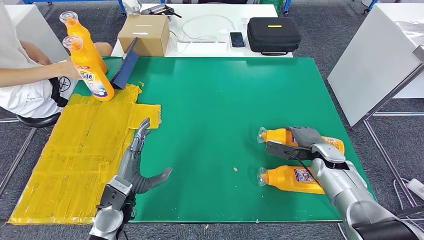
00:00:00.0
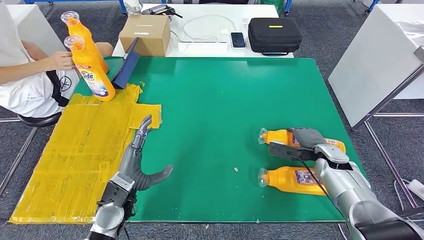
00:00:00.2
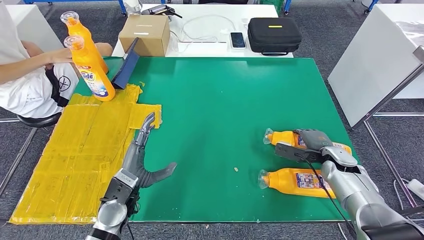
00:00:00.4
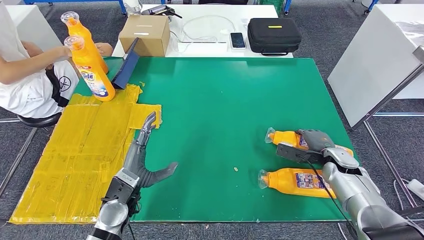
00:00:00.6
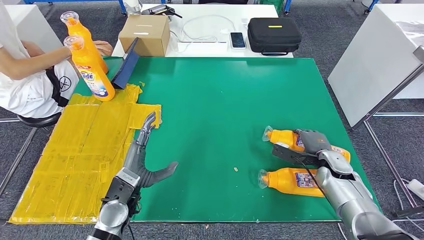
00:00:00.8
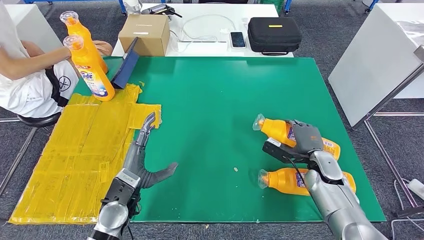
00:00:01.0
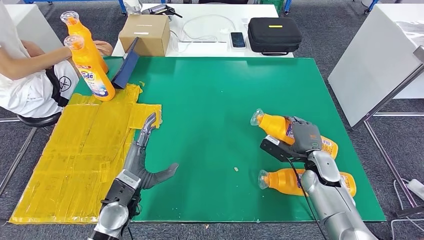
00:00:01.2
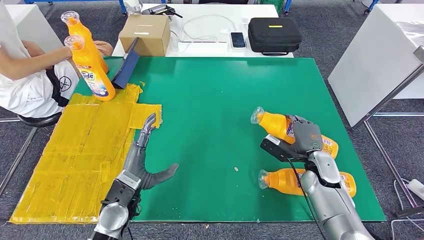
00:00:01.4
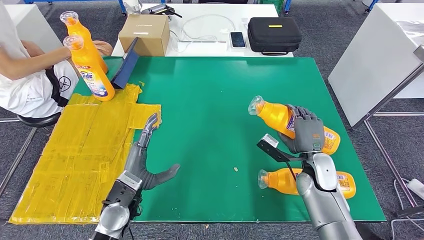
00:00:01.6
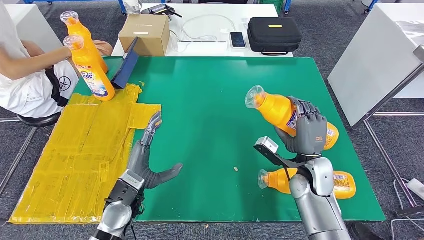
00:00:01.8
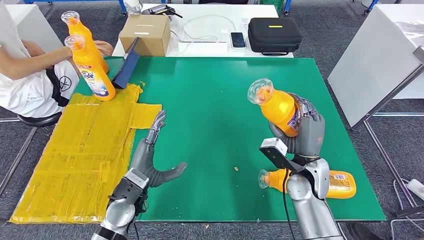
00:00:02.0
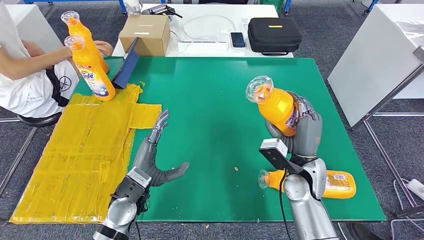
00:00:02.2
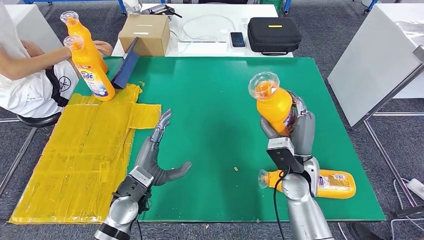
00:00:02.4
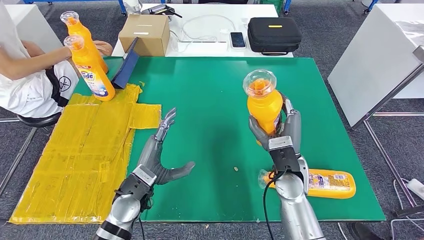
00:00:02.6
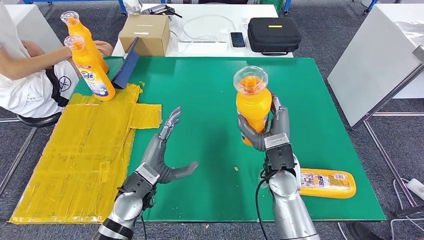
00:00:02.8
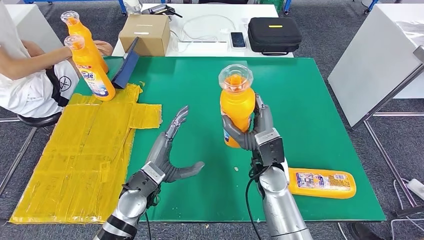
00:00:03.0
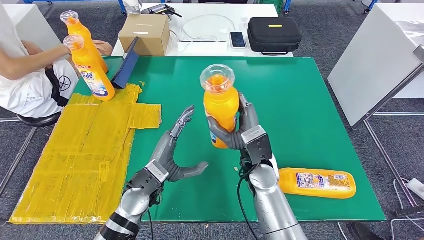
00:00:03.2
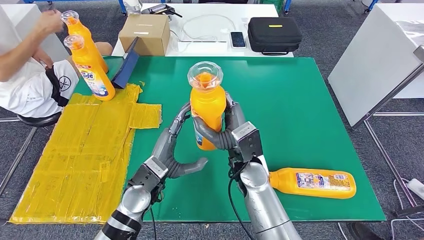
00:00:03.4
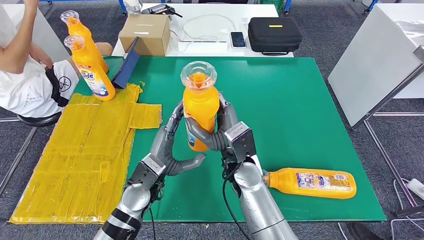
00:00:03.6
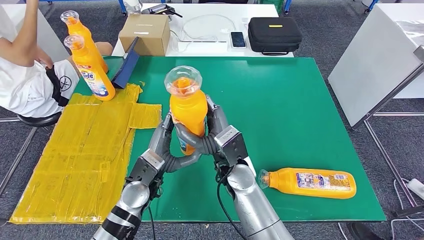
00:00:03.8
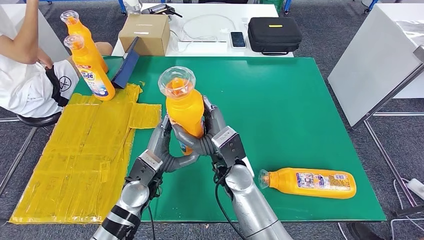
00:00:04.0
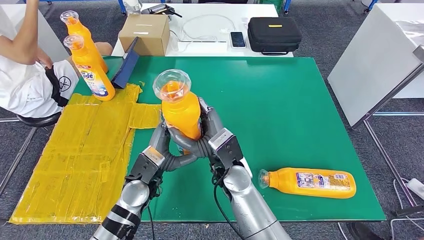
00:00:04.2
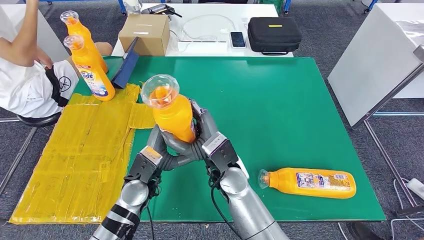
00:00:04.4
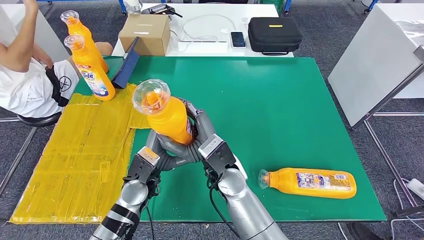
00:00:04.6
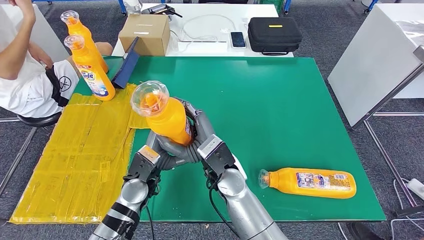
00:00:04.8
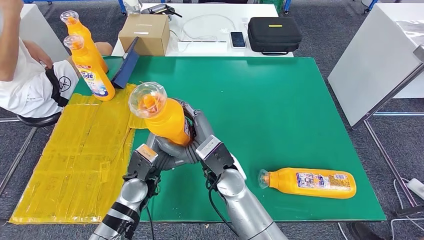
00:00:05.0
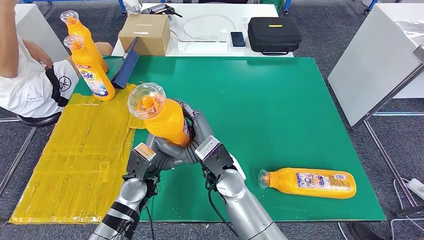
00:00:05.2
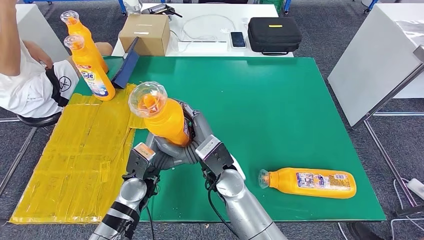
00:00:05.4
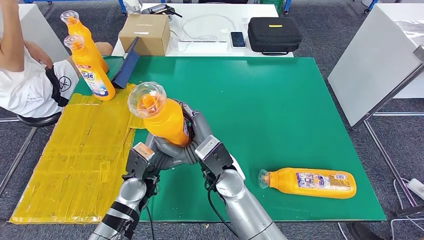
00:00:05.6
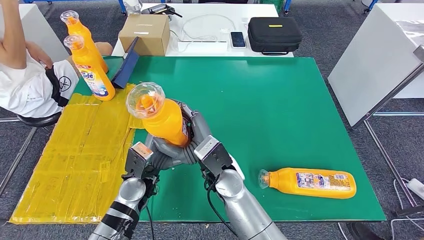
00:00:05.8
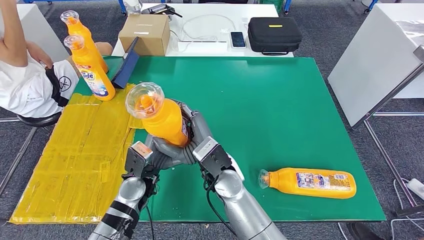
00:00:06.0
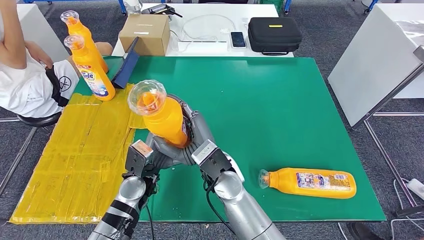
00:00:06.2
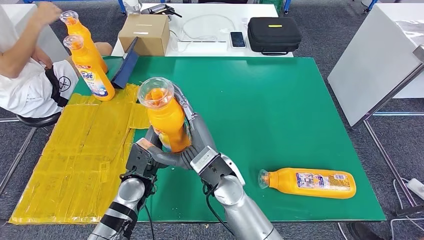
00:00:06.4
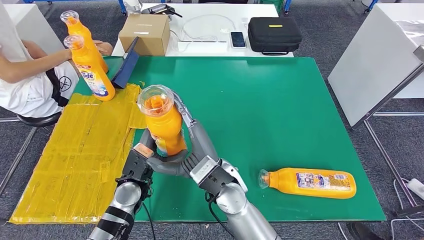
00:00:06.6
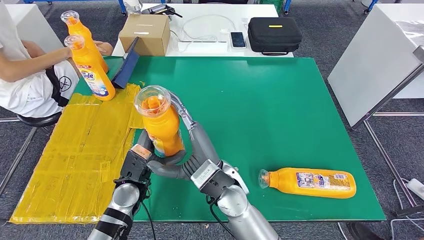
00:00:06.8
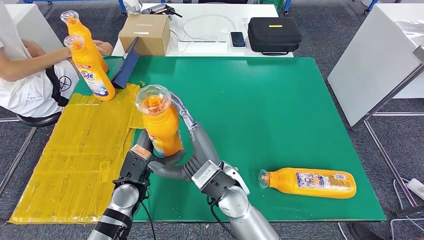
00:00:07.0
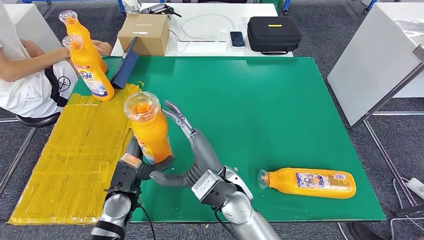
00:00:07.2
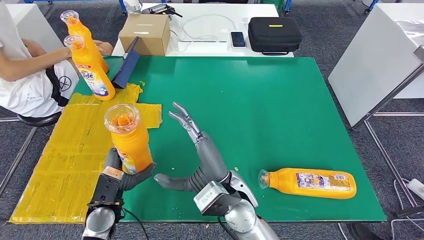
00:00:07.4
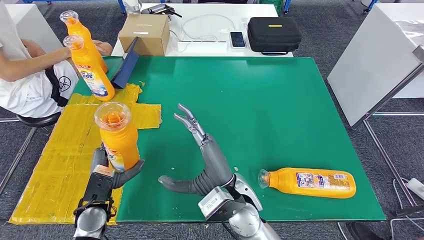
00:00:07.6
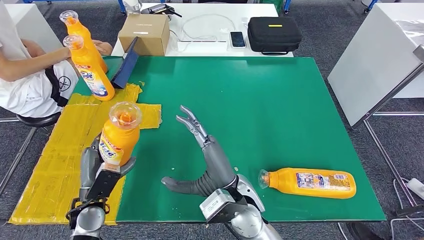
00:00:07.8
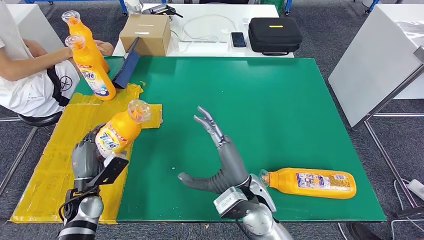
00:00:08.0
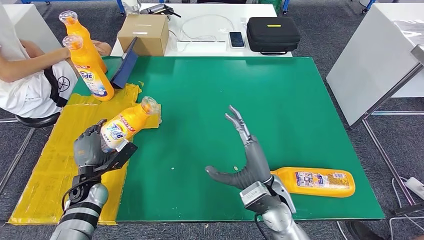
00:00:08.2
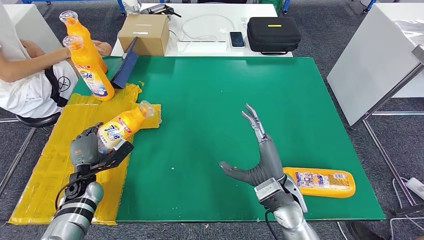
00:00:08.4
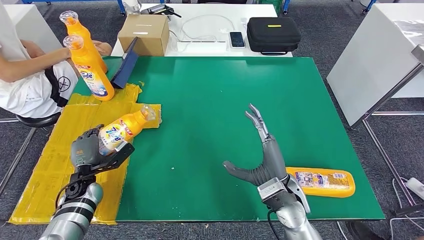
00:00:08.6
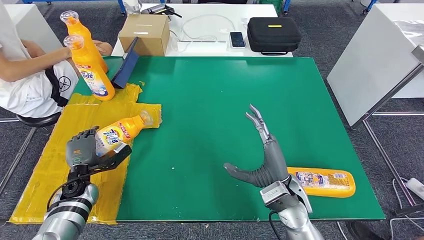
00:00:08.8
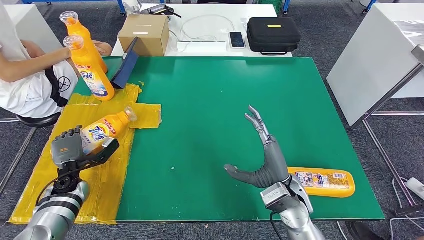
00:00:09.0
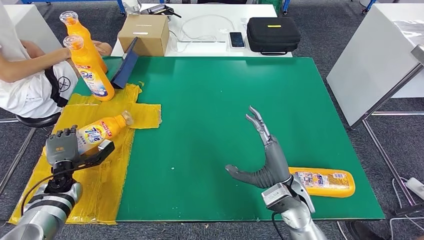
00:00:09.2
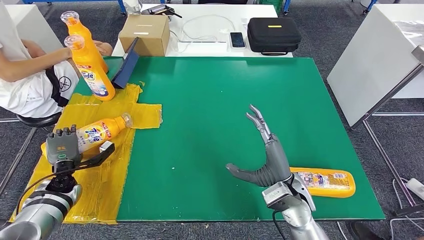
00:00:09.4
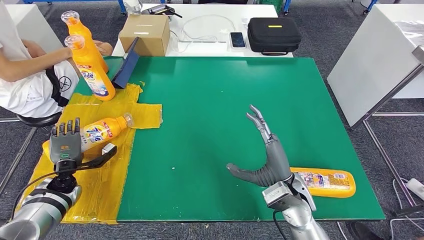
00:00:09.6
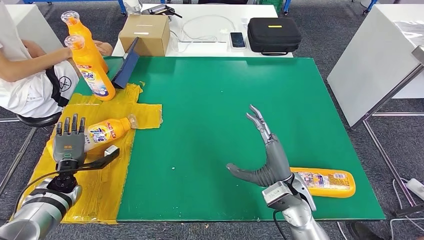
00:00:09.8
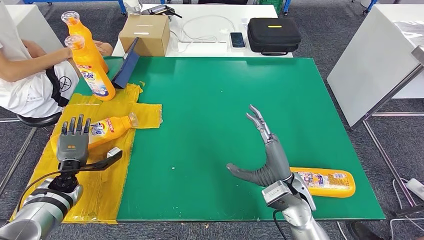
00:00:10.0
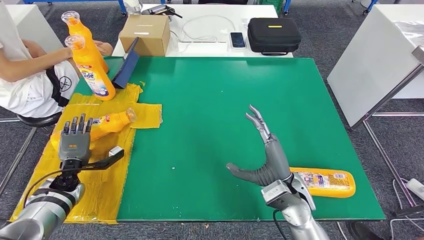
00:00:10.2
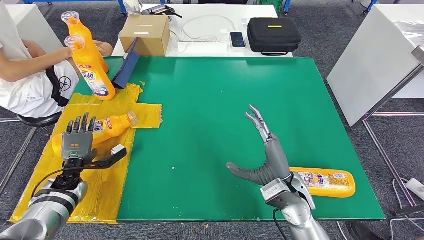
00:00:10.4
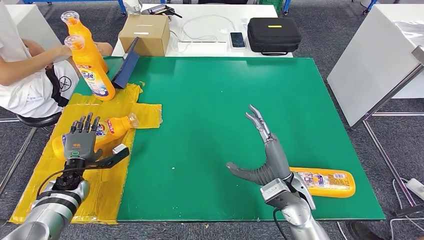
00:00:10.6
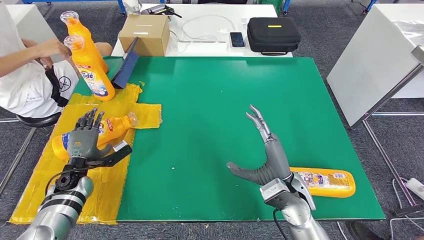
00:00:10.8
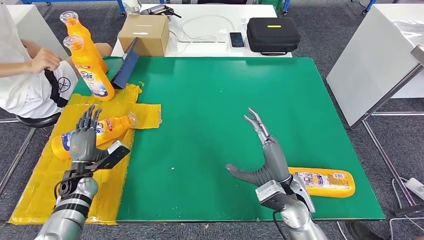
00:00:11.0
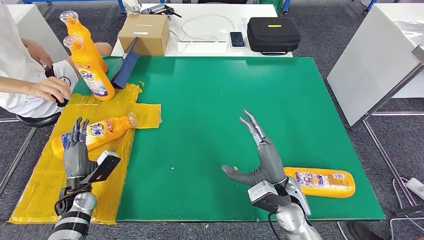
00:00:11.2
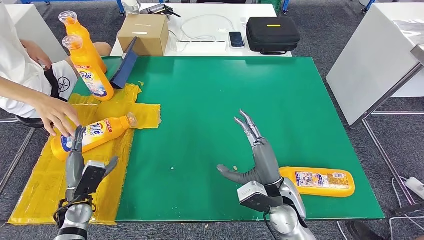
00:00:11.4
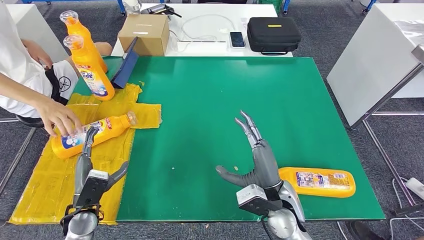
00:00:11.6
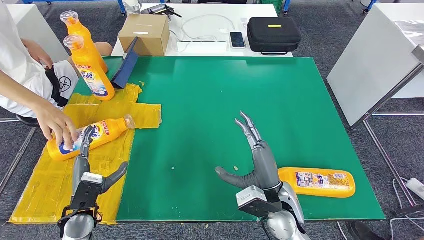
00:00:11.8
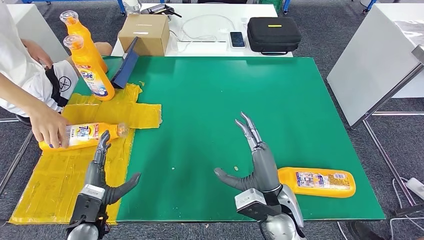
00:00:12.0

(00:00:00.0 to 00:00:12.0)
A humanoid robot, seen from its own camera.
Step, 00:00:00.0 - 00:00:03.2: Pick up the fast-moving consumer goods bottle from the table.
00:00:00.0 - 00:00:01.6: The right hand travels to the left by approximately 5 cm.
00:00:01.6 - 00:00:03.0: The left hand moves roughly 5 cm; the right hand moves to the left, some 15 cm.
00:00:03.0 - 00:00:04.4: The right hand heads to the left, covering roughly 10 cm.
00:00:04.4 - 00:00:06.0: The hands move only a little.
00:00:06.0 - 00:00:07.6: The right hand travels backward by about 5 cm; the left hand is displaced to the left and backward by about 15 cm.
00:00:07.6 - 00:00:09.0: The left hand moves to the left and forward, about 15 cm. The right hand shifts approximately 15 cm to the right.
00:00:10.4 - 00:00:12.0: The left hand travels backward and to the right by roughly 20 cm.

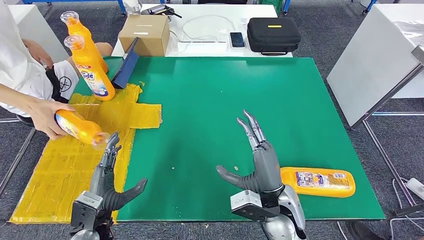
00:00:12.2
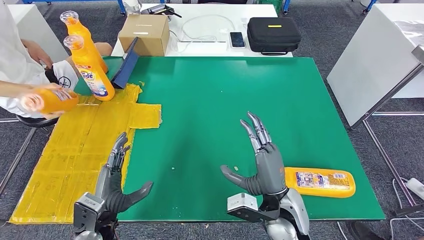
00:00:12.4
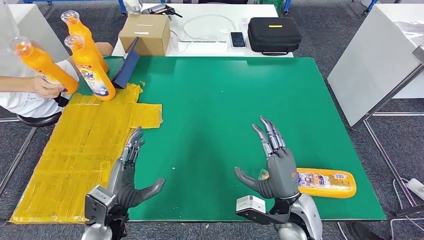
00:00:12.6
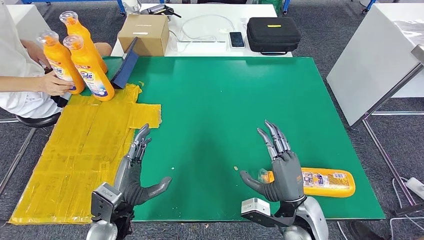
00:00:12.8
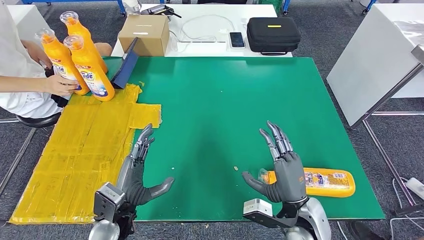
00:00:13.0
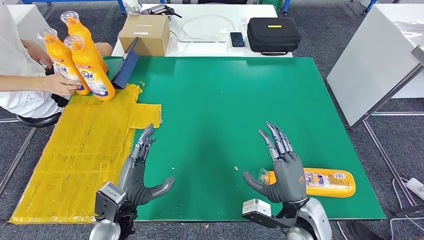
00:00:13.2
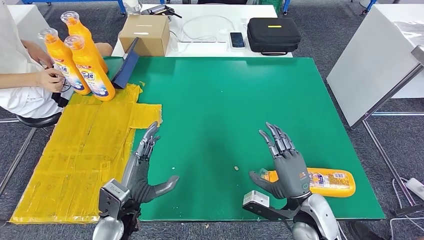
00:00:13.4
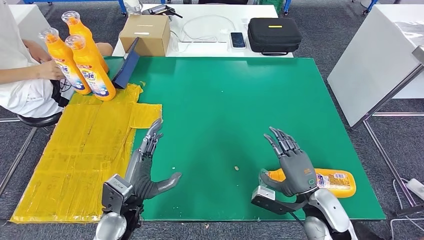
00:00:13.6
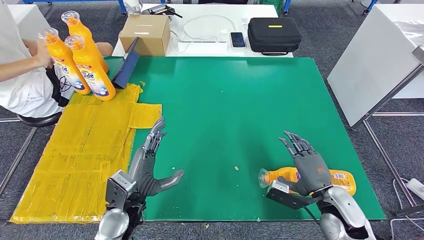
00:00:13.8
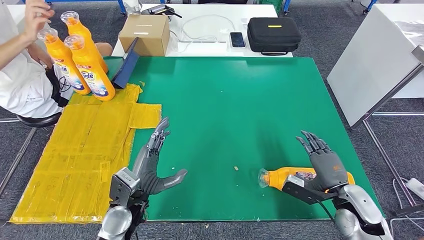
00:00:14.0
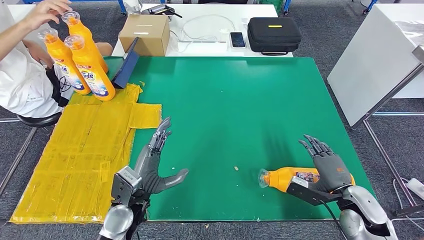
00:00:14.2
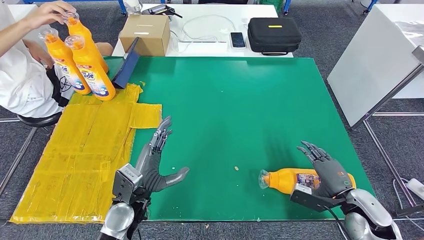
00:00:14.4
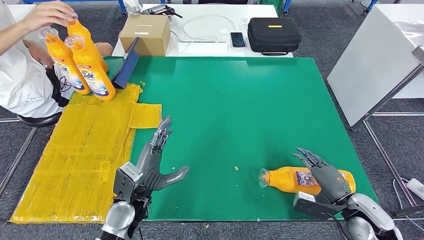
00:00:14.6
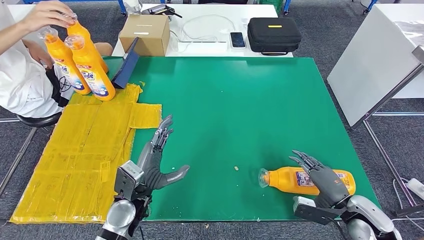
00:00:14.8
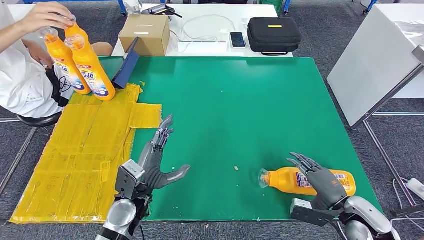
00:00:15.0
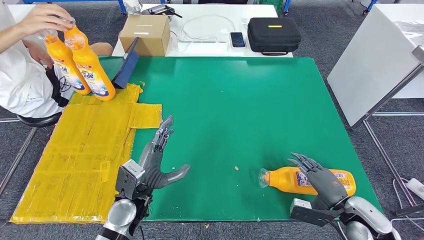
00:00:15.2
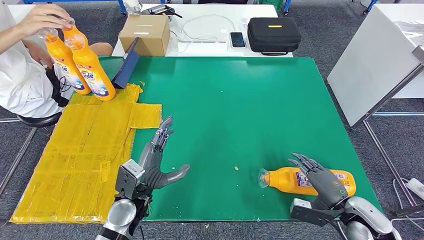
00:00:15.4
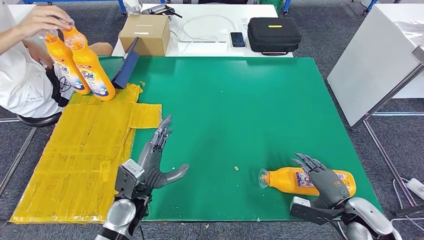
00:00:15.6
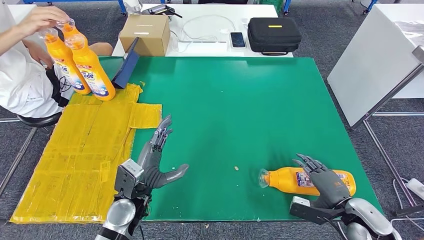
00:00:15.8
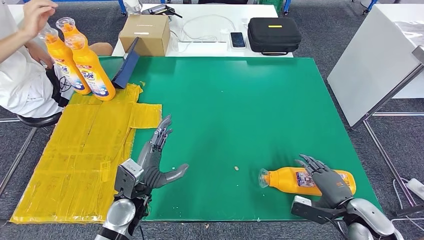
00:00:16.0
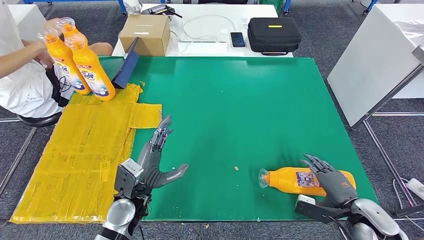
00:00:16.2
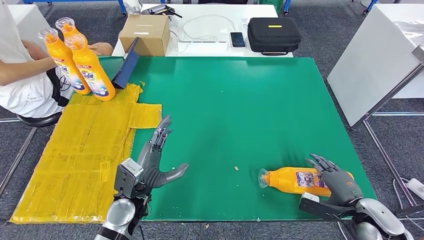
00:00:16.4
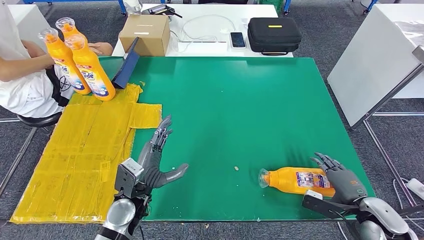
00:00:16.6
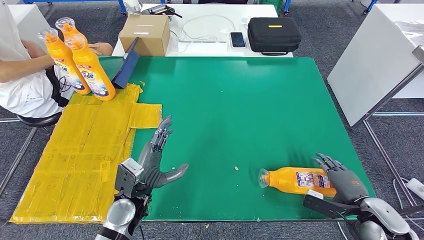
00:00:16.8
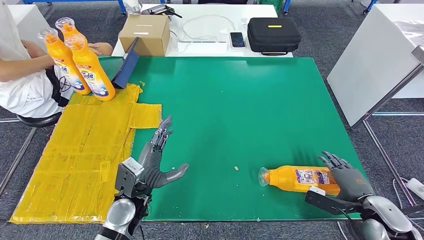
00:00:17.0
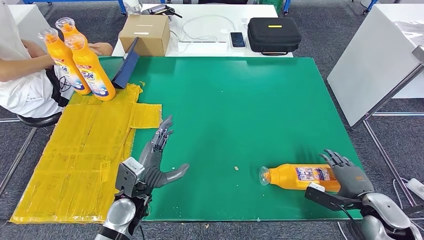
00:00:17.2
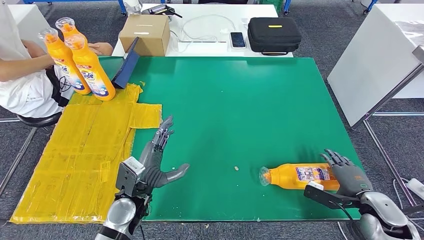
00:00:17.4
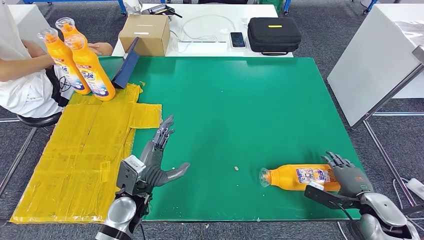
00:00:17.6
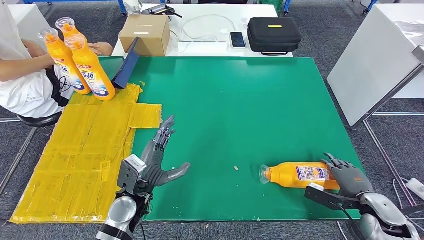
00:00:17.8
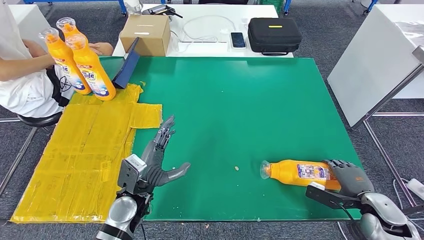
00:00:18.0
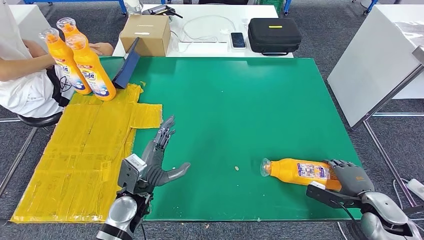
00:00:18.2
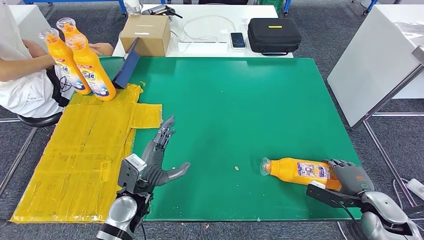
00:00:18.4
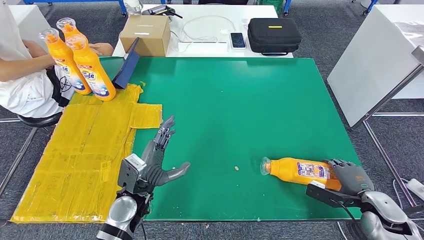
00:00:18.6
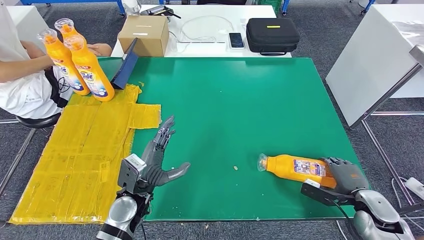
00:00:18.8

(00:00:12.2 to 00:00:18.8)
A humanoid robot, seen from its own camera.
00:00:12.2 - 00:00:13.8: The left hand shifts some 10 cm to the right. Meanwhile the right hand shifts approximately 15 cm to the right.
00:00:13.8 - 00:00:15.4: The right hand heads to the right, covering roughly 5 cm.
00:00:15.4 - 00:00:17.2: The right hand heads to the right, covering about 5 cm.
00:00:17.2 - 00:00:18.8: The hands stay close to where they were, moving slightly.
